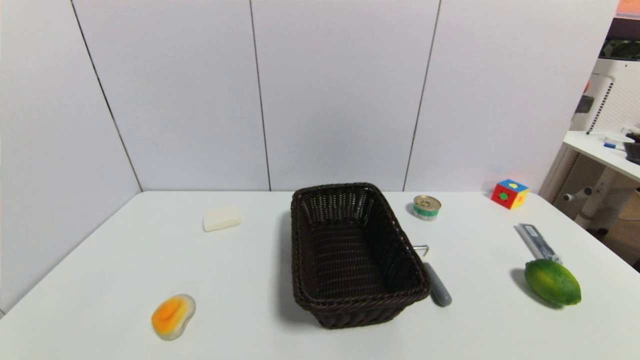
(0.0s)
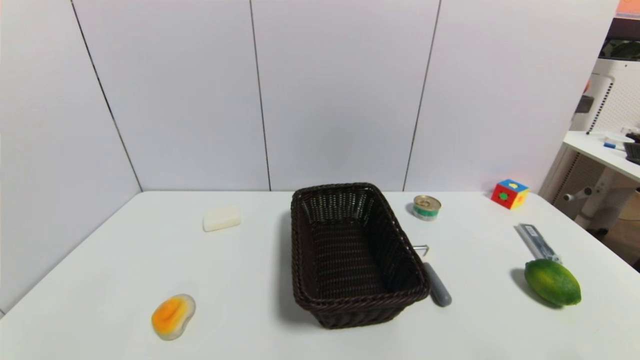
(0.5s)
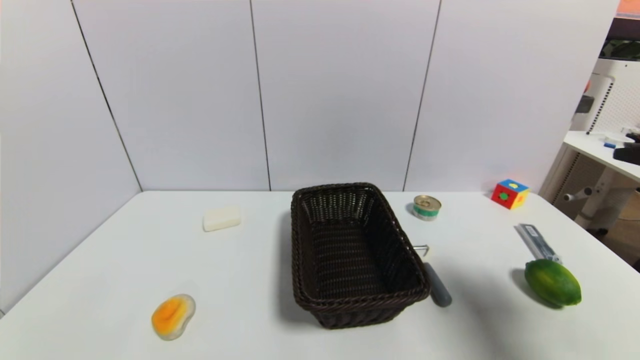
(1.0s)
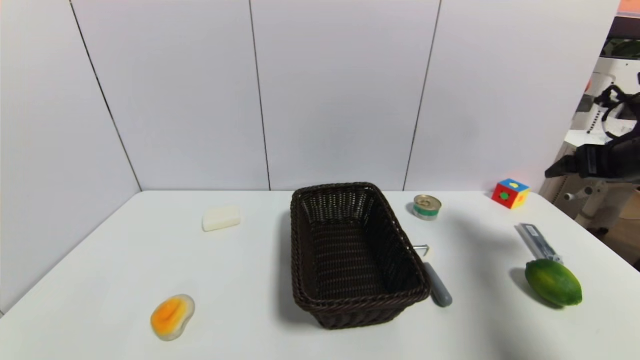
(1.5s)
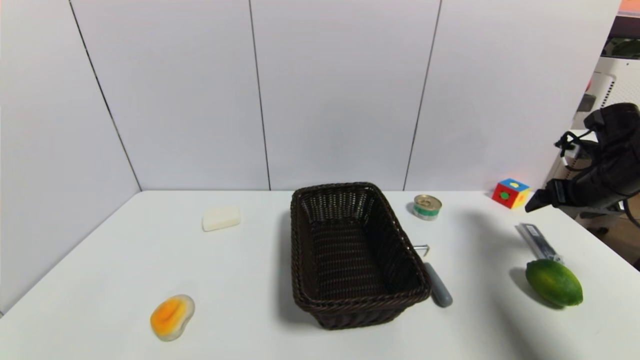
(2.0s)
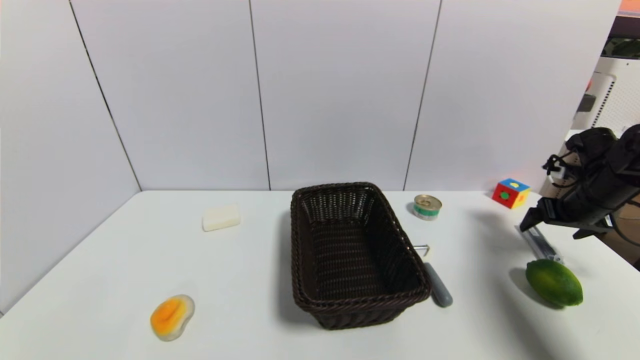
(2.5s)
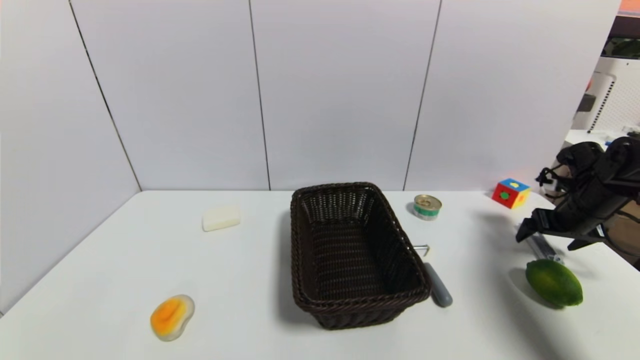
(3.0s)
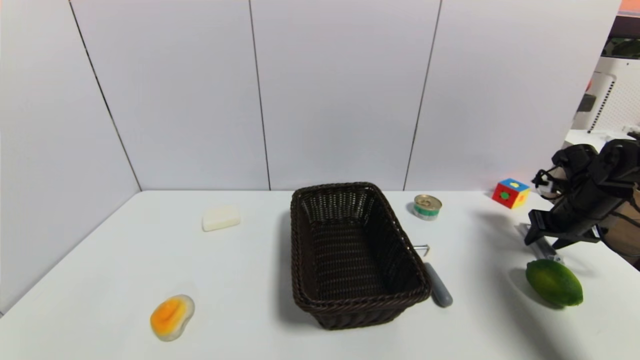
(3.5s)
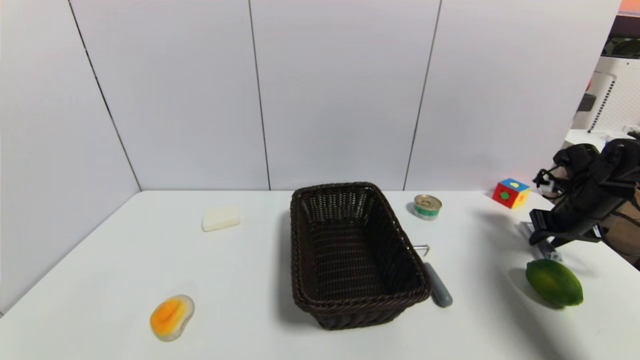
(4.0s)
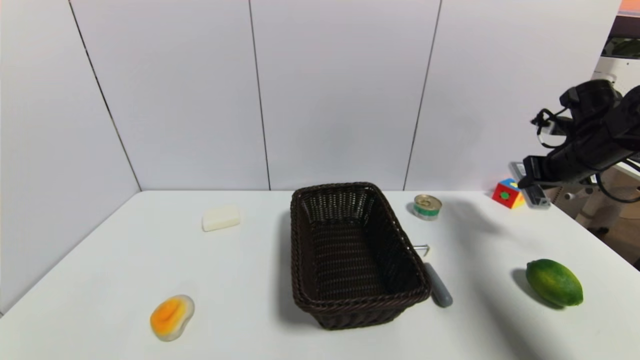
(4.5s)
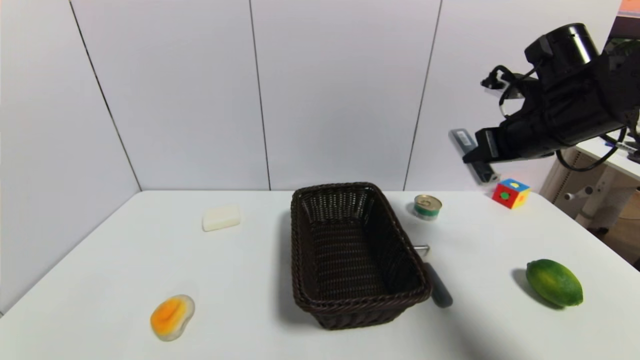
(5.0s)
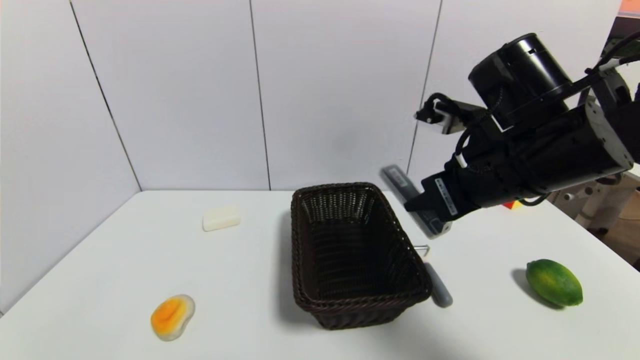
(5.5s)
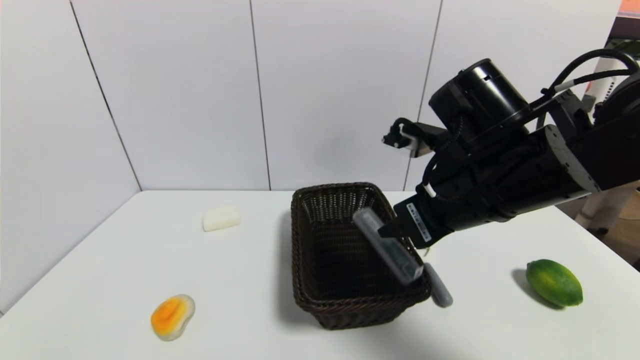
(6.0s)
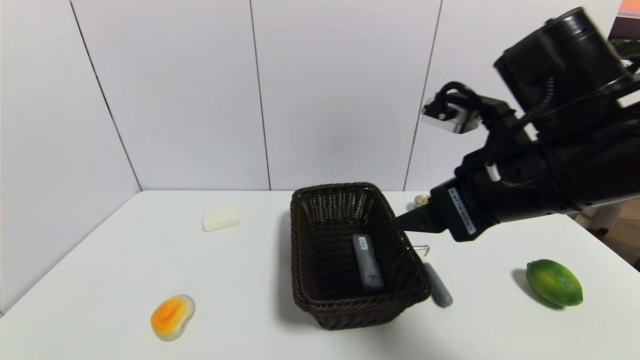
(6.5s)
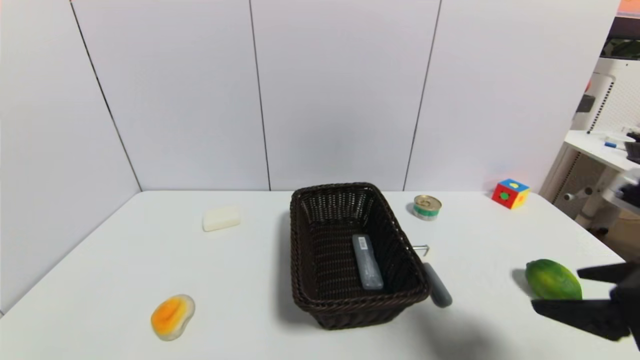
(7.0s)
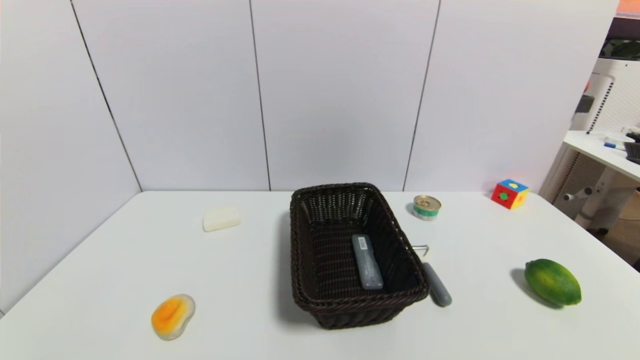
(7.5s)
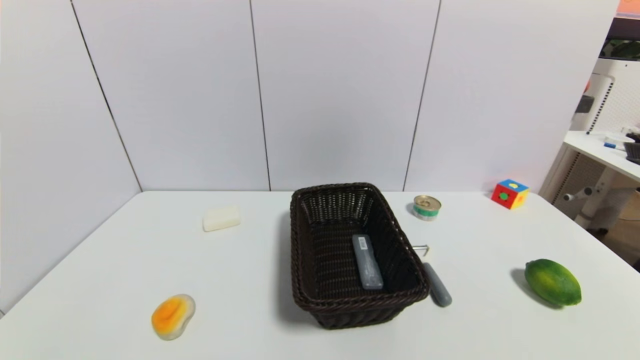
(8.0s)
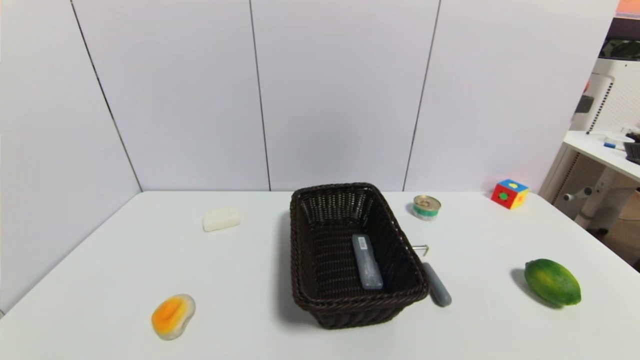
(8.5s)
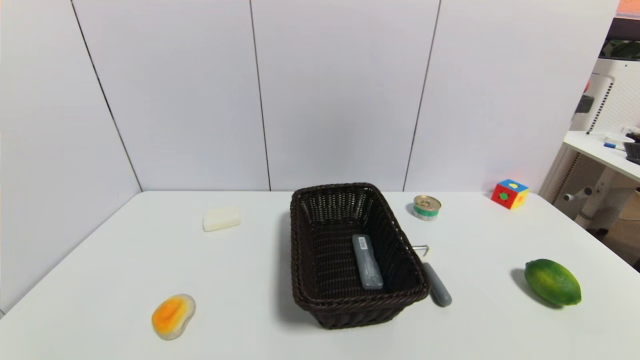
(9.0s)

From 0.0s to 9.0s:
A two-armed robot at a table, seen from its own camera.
Task of the whole recording: use a gripper to pick the target object and place on the brown basket.
Step, from 0.0s to 3.5s: Grasp the compasses with the right gripper.
Step, from 4.0s to 6.5s: Place the compasses into the basket with the right gripper.
From 0.0s to 2.0s: The right gripper shifts about 35 cm forward.
From 2.0s to 4.5s: The right gripper goes downward and returns, approximately 5 cm each way, and closes.
From 4.5s to 7.0s: The right gripper goes some 25 cm backward, and opens its fingers.
From 7.0s to 9.0s: The right gripper is displaced downward and backward by roughly 20 cm.
